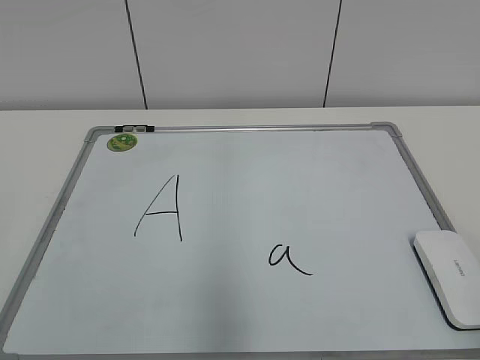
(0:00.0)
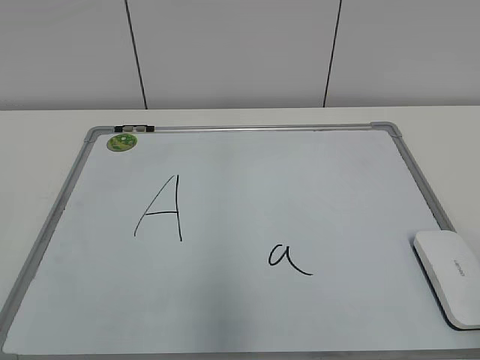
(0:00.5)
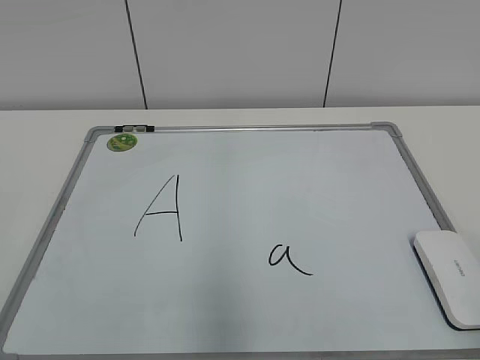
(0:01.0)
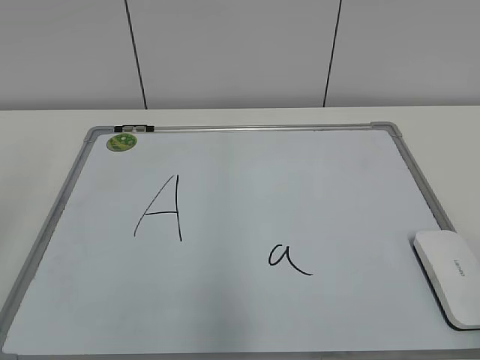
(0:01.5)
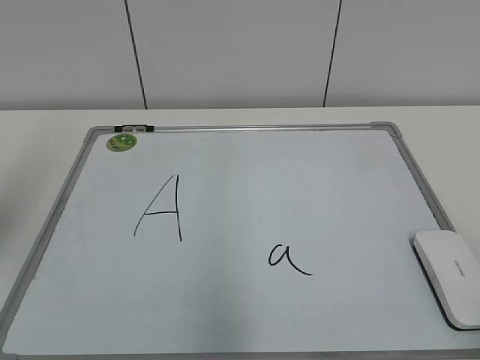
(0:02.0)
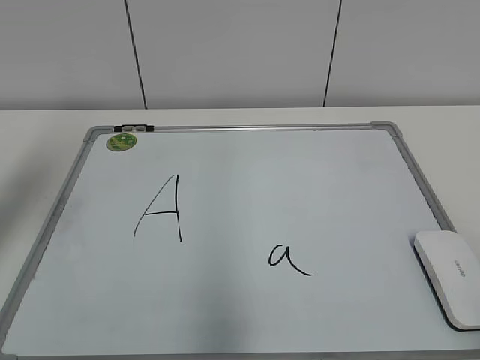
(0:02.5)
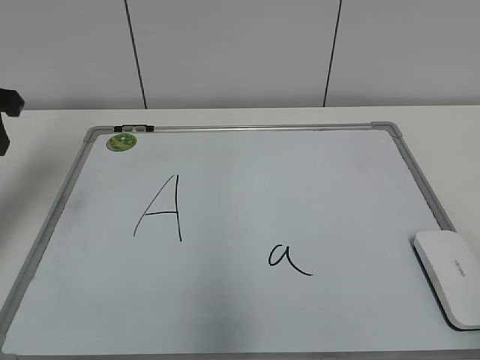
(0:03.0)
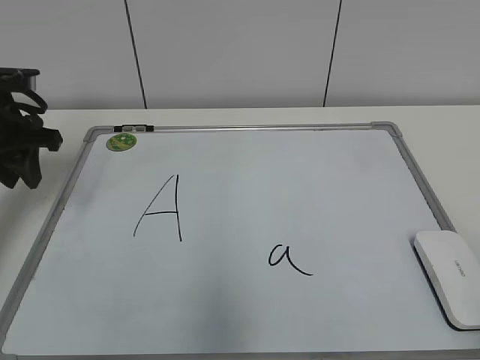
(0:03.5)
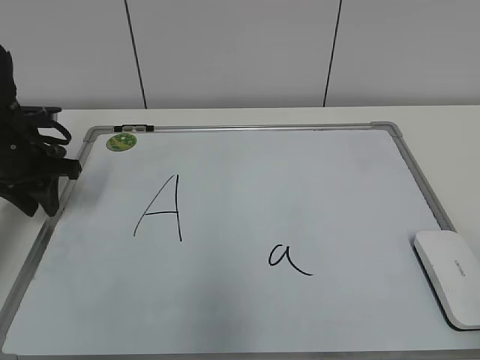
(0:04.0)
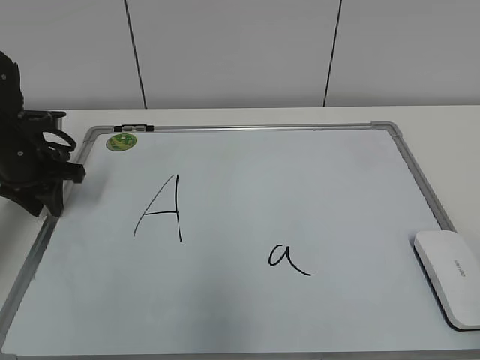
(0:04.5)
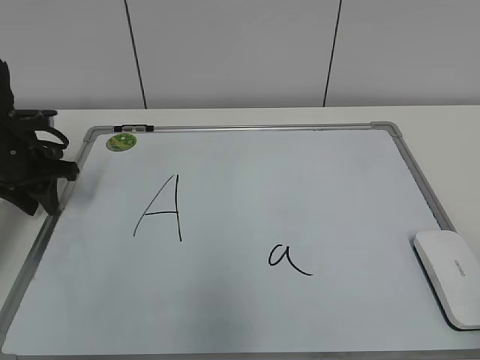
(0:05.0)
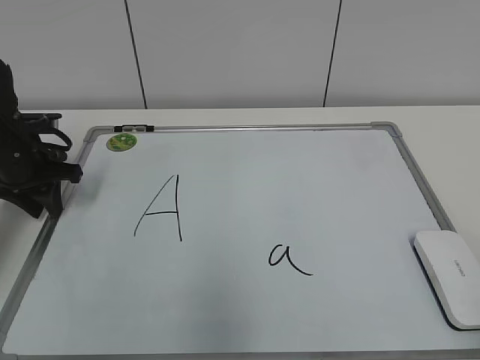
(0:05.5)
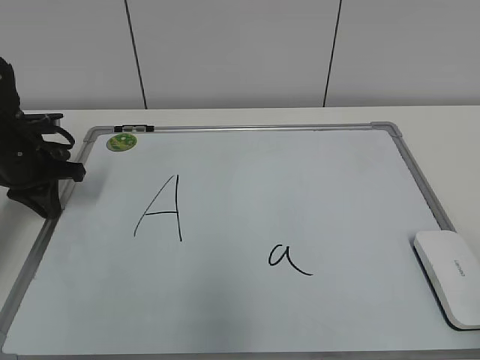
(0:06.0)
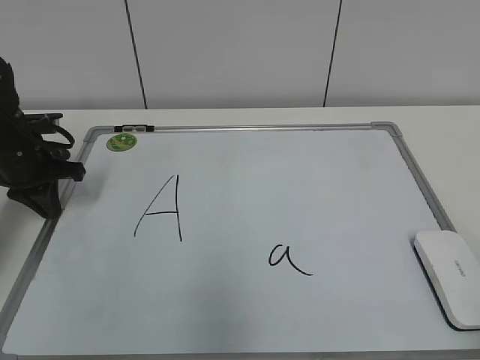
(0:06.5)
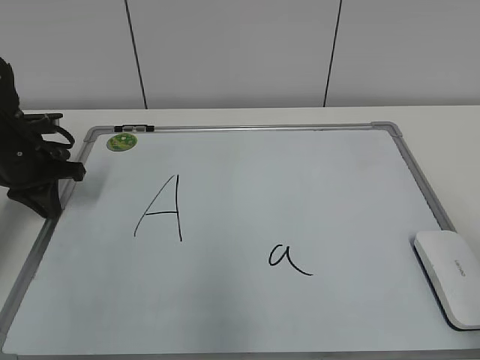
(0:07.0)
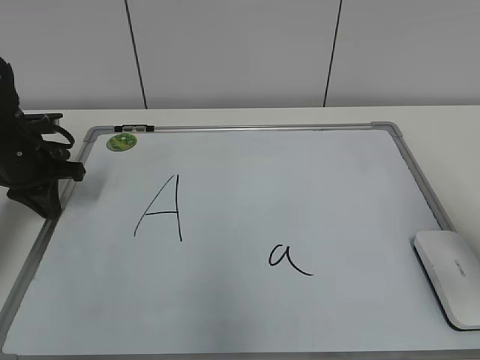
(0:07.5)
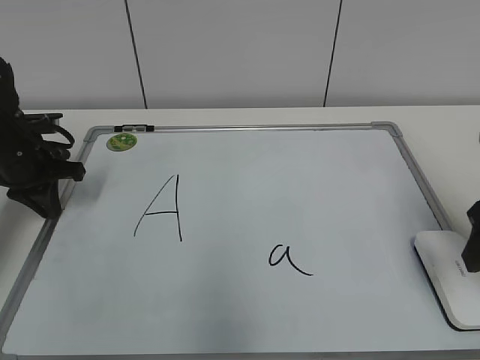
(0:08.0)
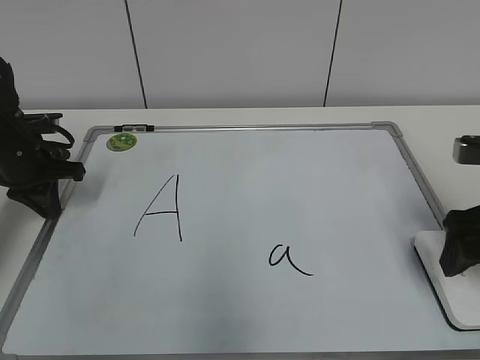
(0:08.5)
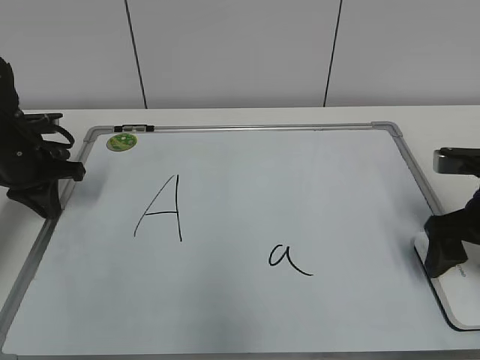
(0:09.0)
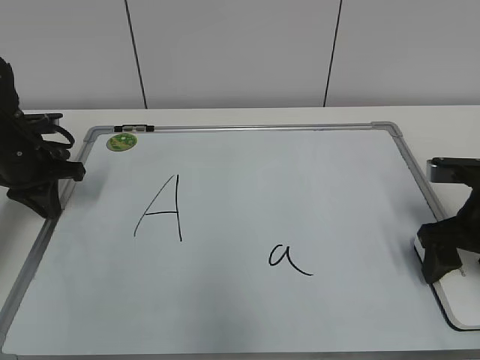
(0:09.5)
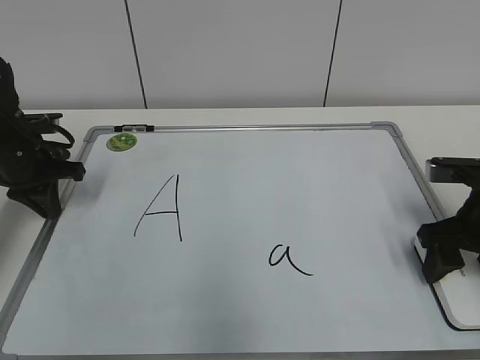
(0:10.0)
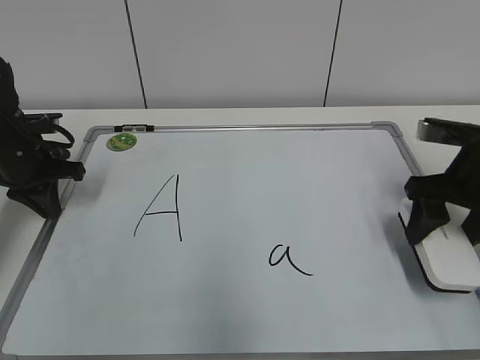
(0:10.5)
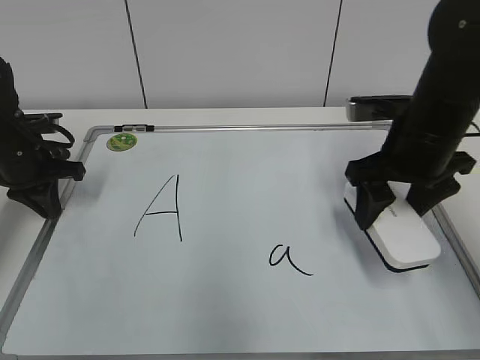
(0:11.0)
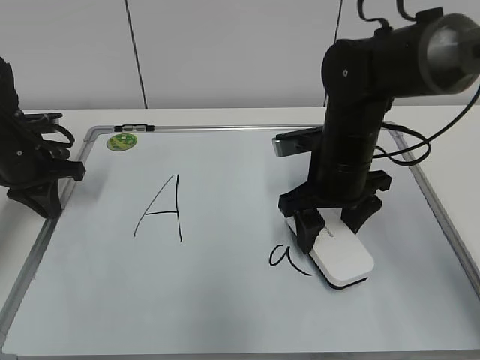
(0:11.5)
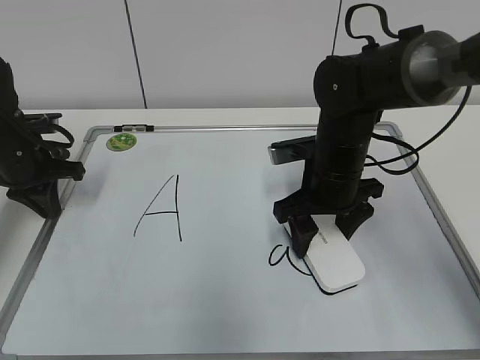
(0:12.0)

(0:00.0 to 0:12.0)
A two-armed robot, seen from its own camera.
Task of the whole recording: pick up the eraser on the blackboard and erase the letter "a".
Step, 0:00.0 - 0:05.5: Hold the drawing board steady with your left hand.
Step, 0:06.0 - 0:09.5: Grab the eraser with your right hand.
0:02.0 - 0:04.0: The left gripper travels downward and forward by some 25 cm.
0:04.0 - 0:06.0: The left gripper closes its fingers.
0:06.0 - 0:08.0: The right gripper moves forward, some 25 cm.
0:08.0 - 0:10.0: The right gripper moves downward and forward, approximately 10 cm, and opens and closes again.
0:10.0 - 0:12.0: The right gripper is displaced to the left and forward by some 20 cm.

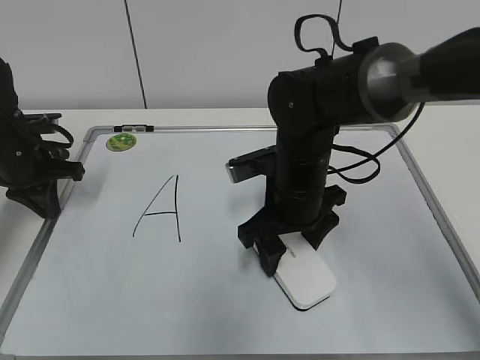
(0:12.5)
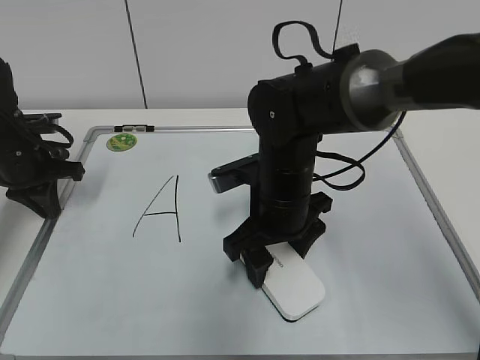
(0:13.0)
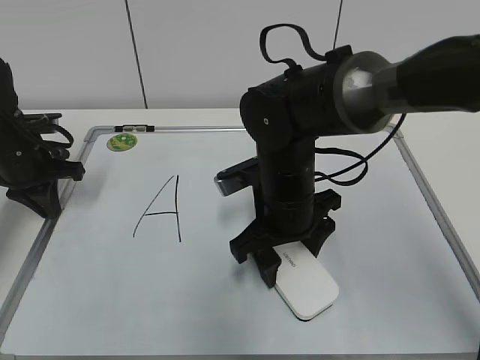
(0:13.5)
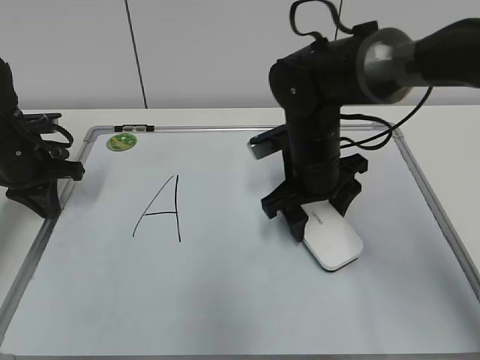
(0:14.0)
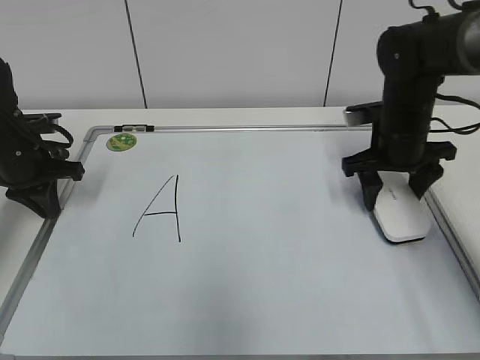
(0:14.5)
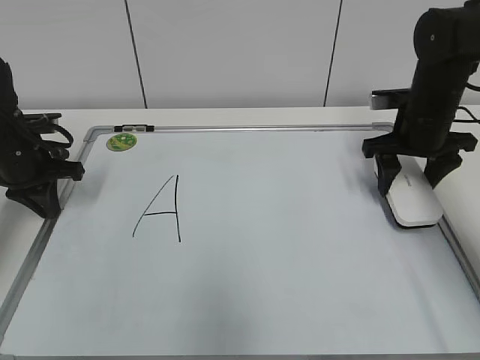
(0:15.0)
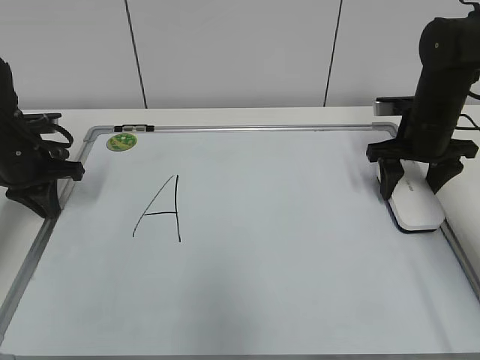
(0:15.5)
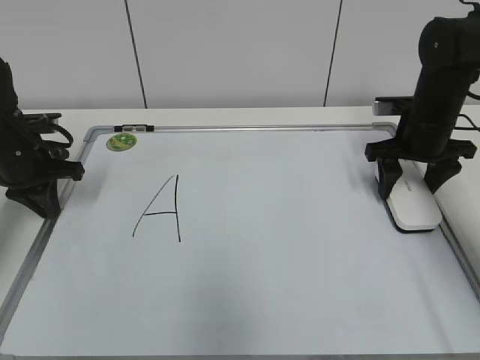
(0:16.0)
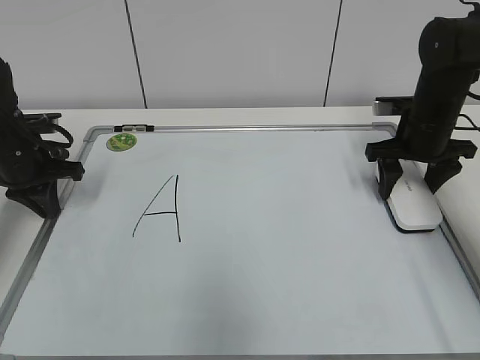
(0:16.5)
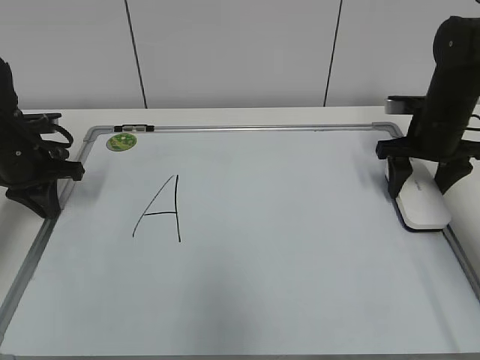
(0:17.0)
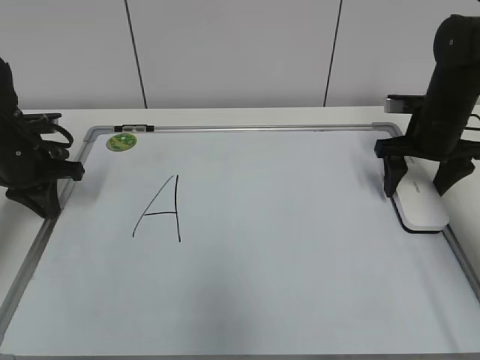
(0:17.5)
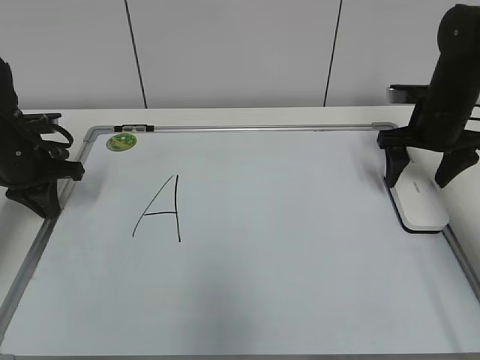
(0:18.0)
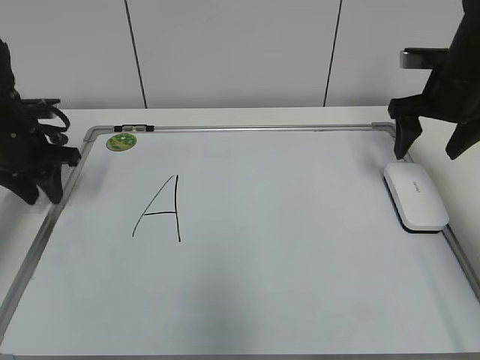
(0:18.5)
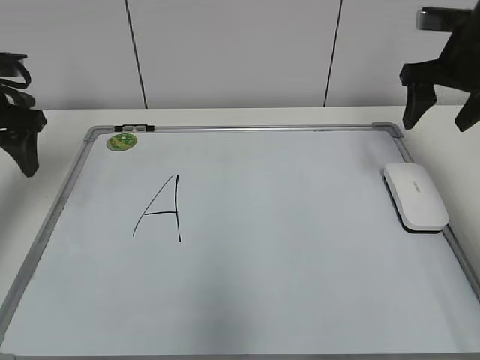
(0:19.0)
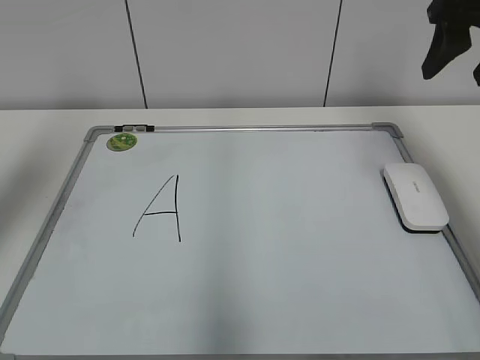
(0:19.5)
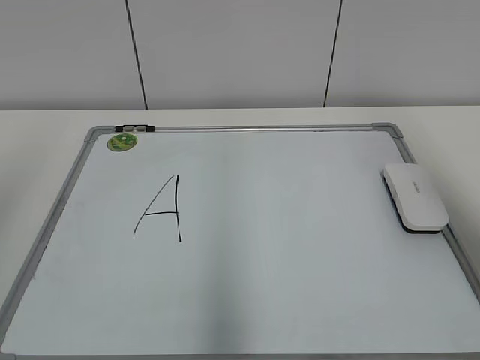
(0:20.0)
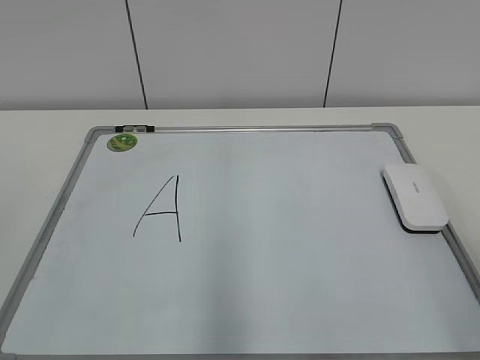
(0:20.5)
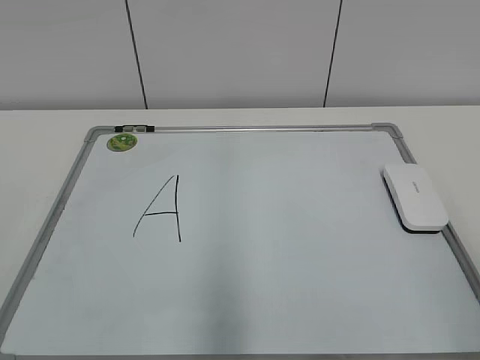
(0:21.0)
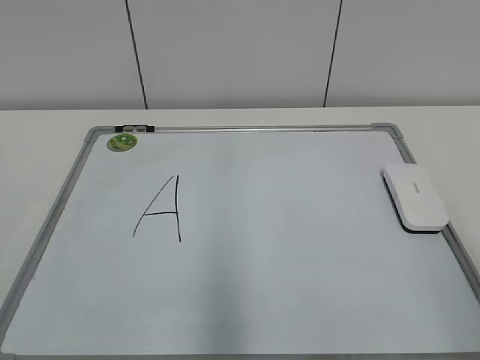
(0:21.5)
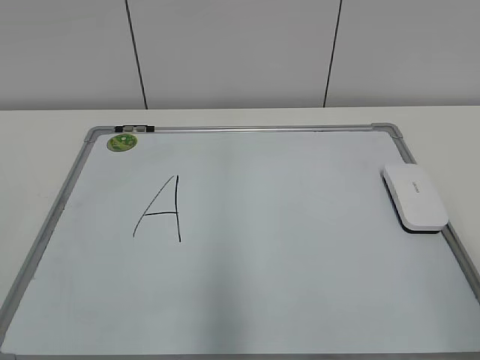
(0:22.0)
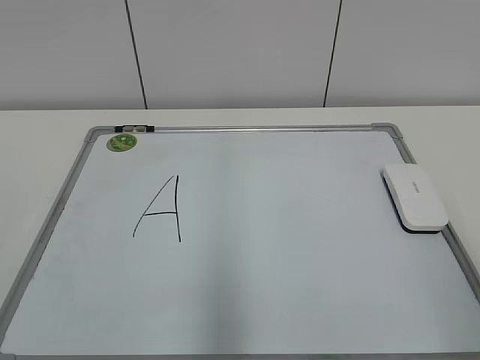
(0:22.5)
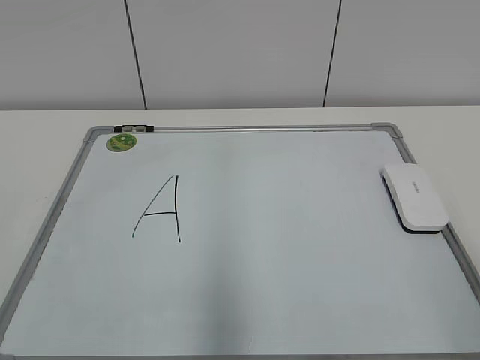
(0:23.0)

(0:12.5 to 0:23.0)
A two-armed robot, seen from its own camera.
Task of the whole recording: pick up the eraser on the blackboard and erase the letter "a".
Step, 0:14.0 - 0:17.0: Put down the eraser with your right hand.
0:12.5 - 0:14.5: The right gripper is displaced to the right and forward by about 15 cm.
0:14.5 - 0:16.5: The right gripper ends up roughly 5 cm from where it was.
0:16.5 - 0:19.0: The grippers both shift upward by roughly 10 cm. The left gripper opens up; the right gripper opens up.
0:19.0 - 0:21.0: The two grippers go roughly 35 cm backward. The right gripper closes.

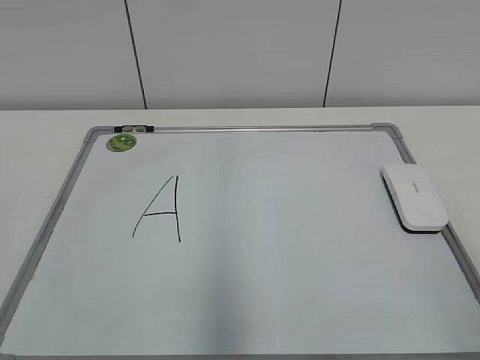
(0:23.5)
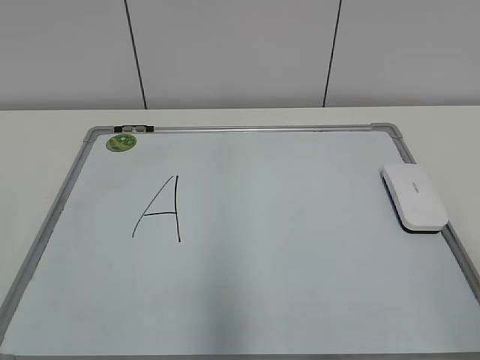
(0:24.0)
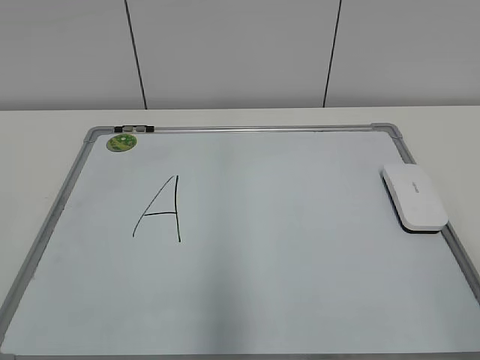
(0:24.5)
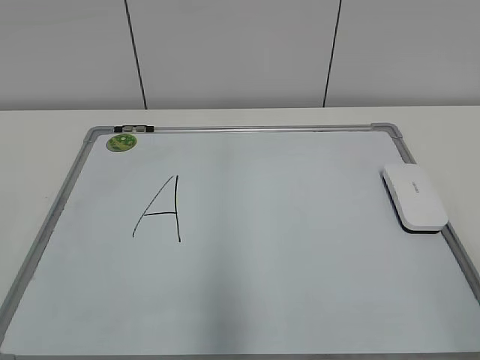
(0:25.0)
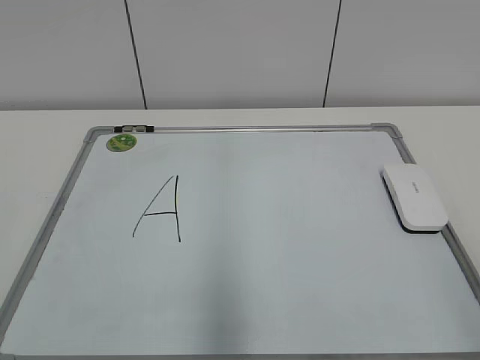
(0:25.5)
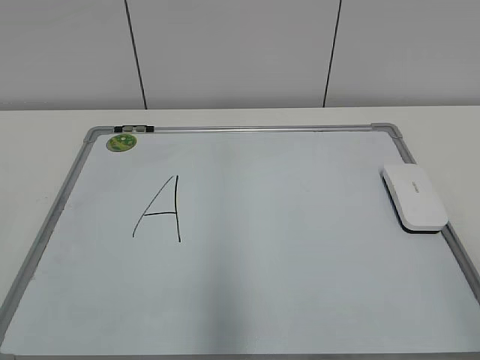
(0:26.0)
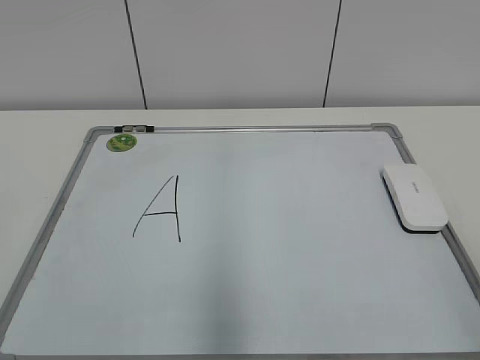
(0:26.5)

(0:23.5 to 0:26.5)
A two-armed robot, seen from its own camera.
Task of the whole recording: pick up the eraser on the blackboard and erase the letter "a".
0:23.5 - 0:25.0: Both grippers stay put.
